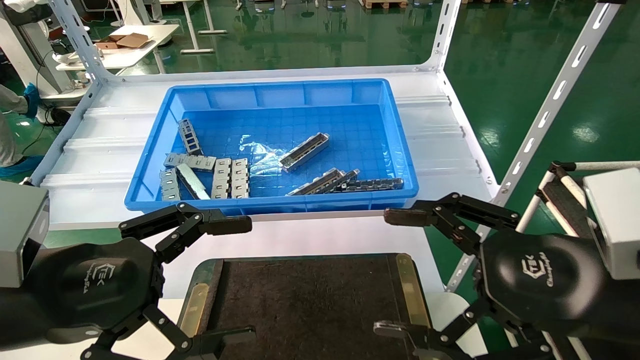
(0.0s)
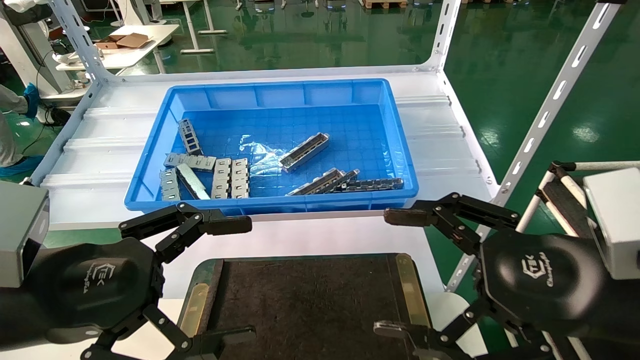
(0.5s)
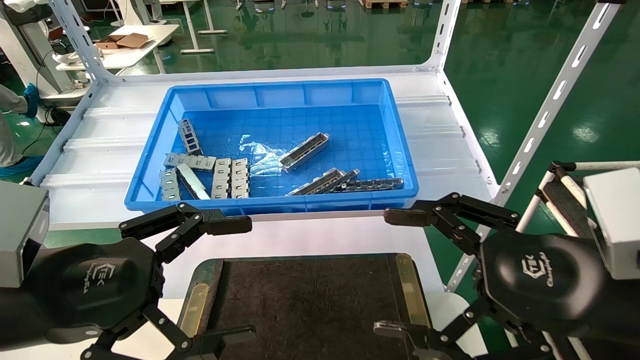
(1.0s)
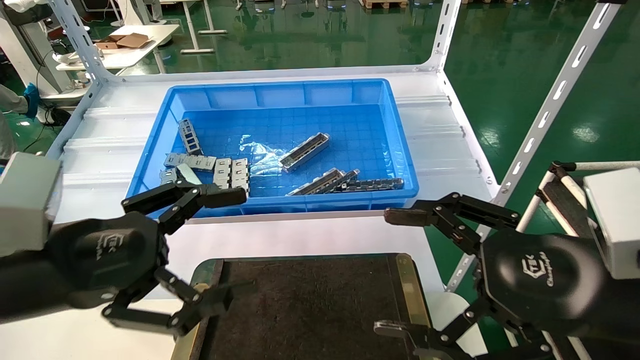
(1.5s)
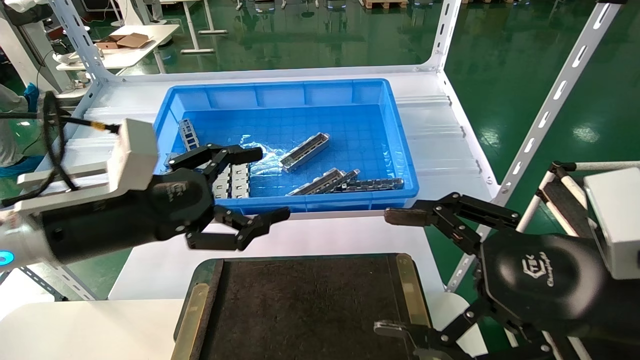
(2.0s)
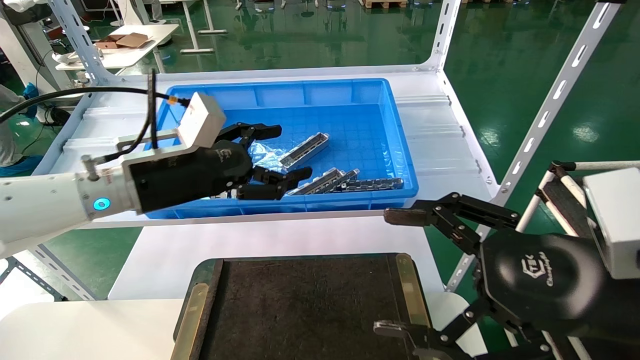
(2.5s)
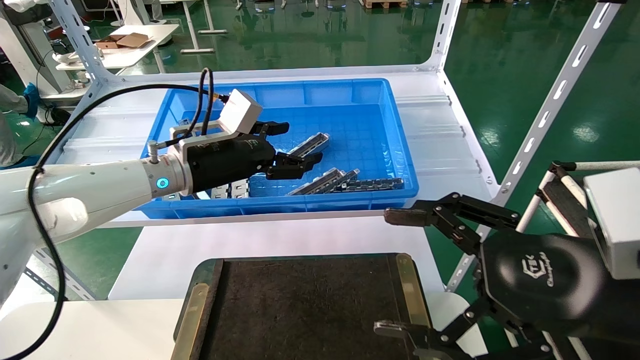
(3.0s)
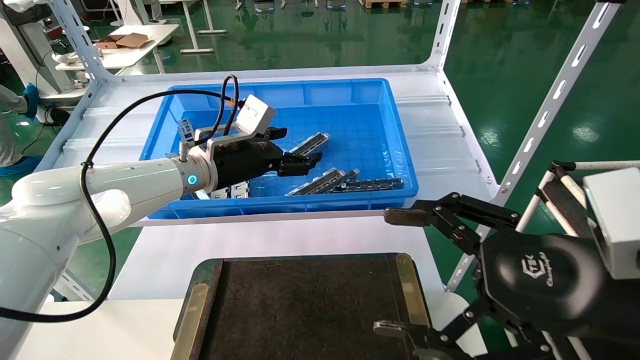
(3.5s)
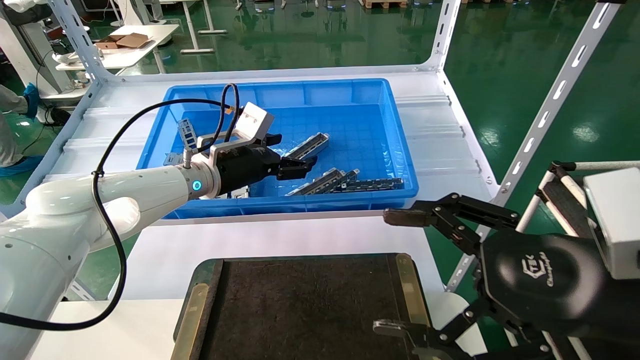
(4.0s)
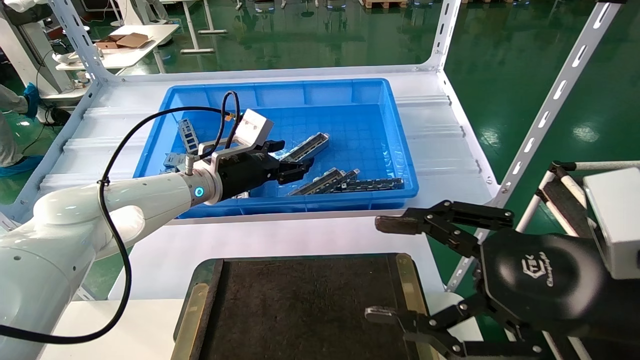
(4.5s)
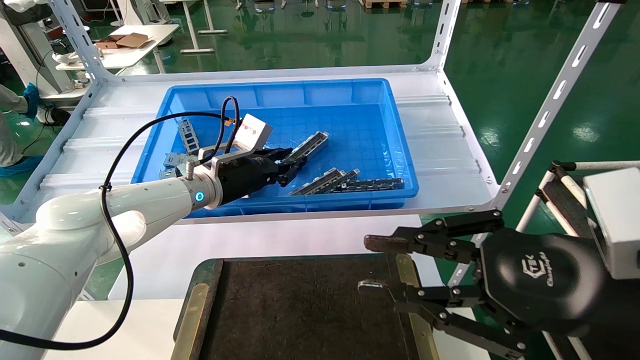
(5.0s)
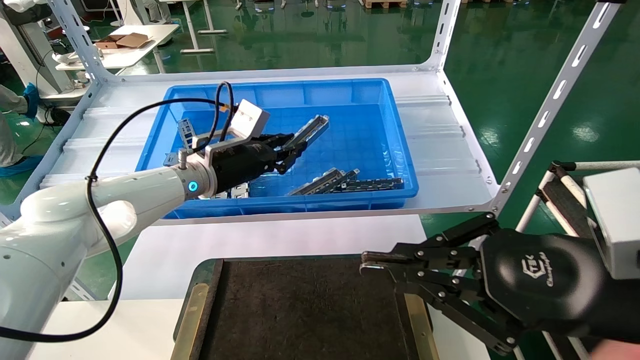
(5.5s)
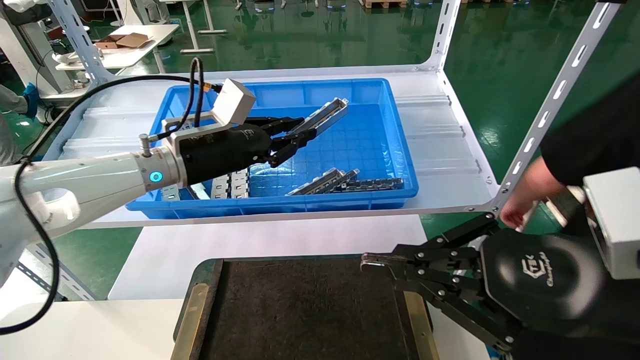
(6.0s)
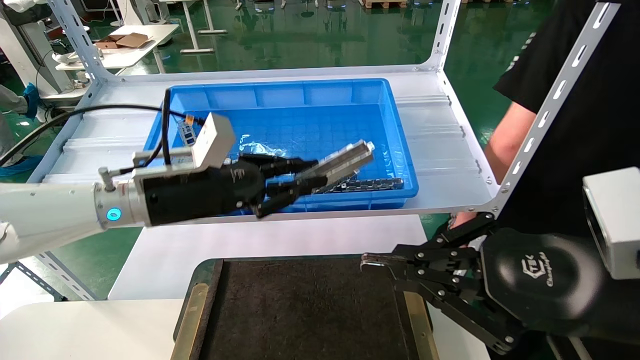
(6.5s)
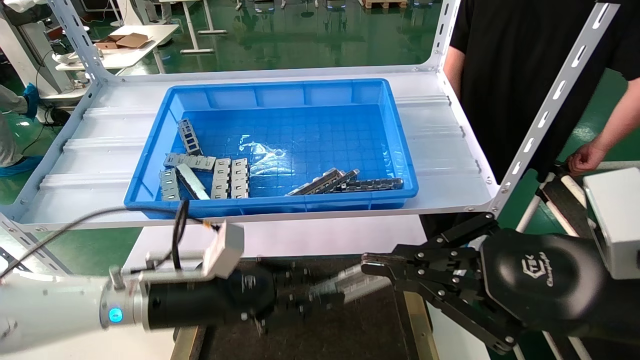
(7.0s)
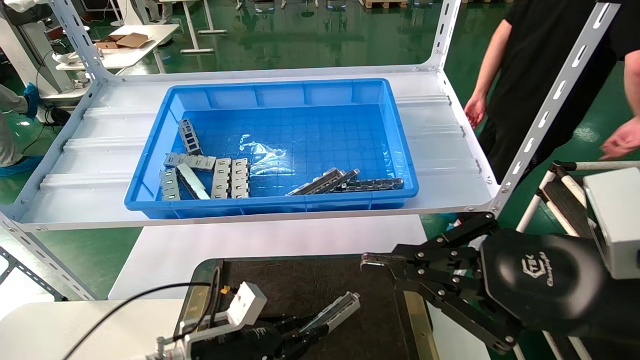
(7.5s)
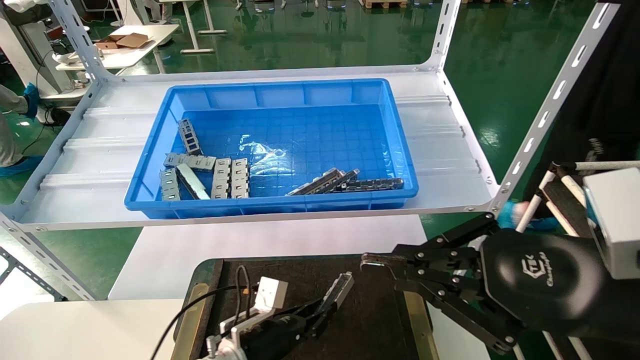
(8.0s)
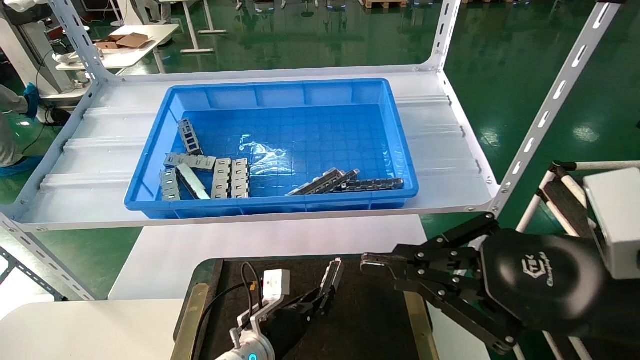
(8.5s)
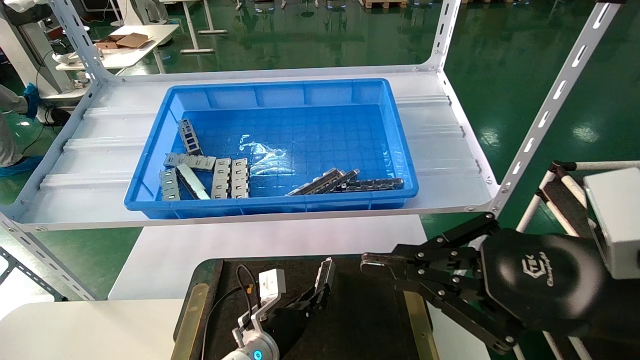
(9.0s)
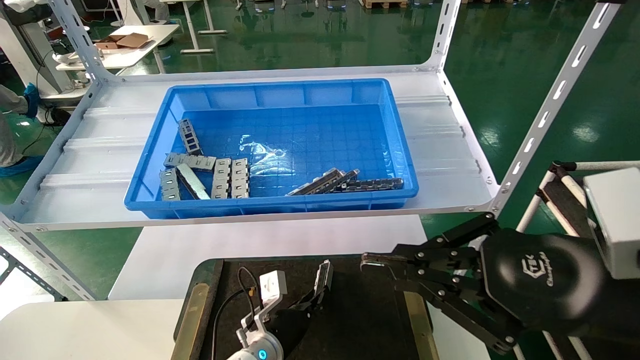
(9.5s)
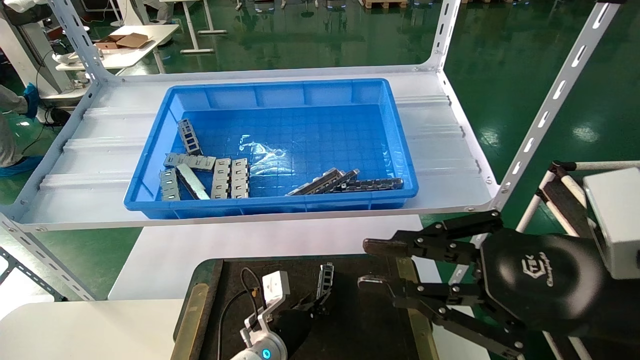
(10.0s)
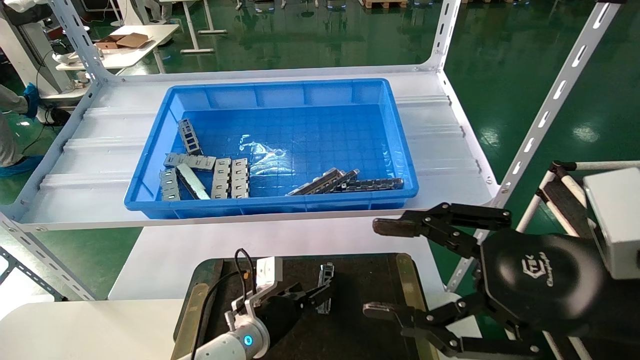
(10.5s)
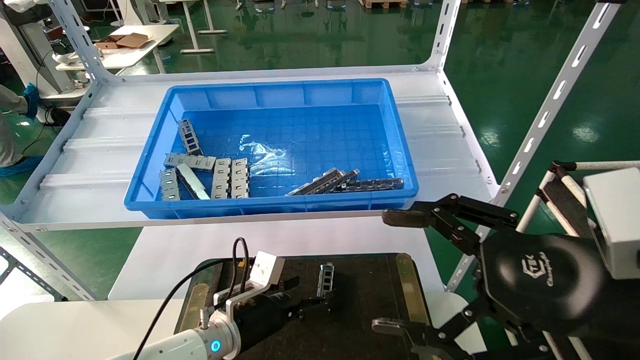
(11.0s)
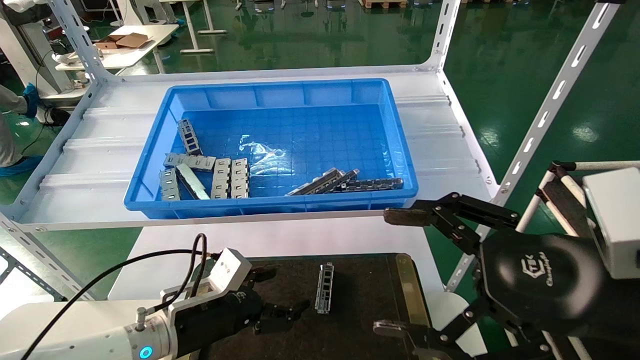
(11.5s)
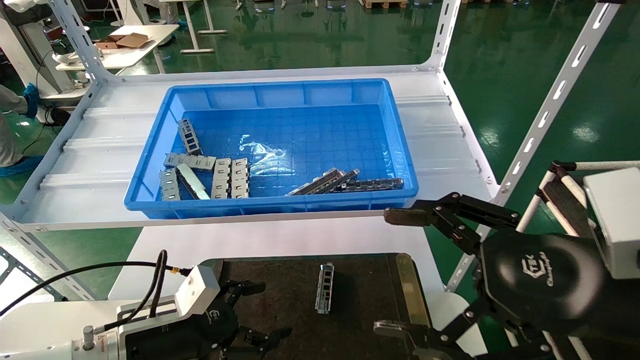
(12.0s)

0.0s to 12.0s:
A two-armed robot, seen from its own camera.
Task of the whole recording: Grasp the part with one hand and place it on the black container.
Step, 2.0s to 5.5s: Pick up the front USB bracket from the feeding area.
Step, 6.0s to 9.5s: Place the front USB bracket into the box.
0.0s to 2.0s: The left gripper heads forward, covering approximately 10 cm.
2.0s to 4.0s: The left gripper goes roughly 20 cm forward.
4.0s to 6.0s: The left gripper changes place by roughly 5 cm, and closes up. Meanwhile the right gripper closes up.
6.0s to 8.0s: The left gripper is displaced downward by about 30 cm.
8.0s to 10.0s: The left gripper shifts by approximately 5 cm.
10.0s to 12.0s: The left gripper shifts some 20 cm to the left, upward and backward, and opens. The right gripper opens its fingers.

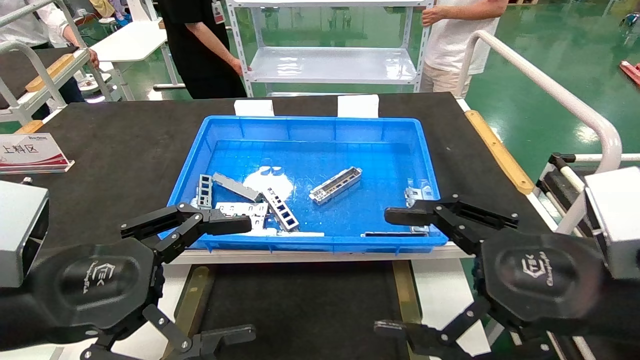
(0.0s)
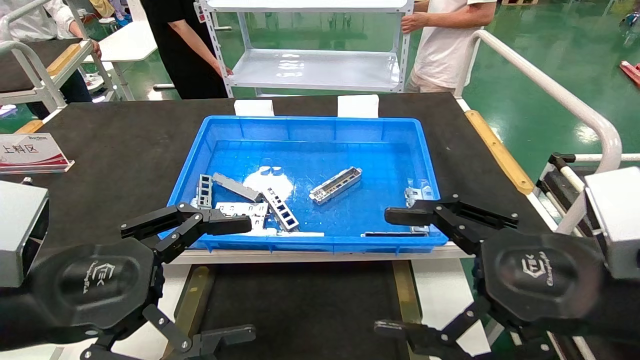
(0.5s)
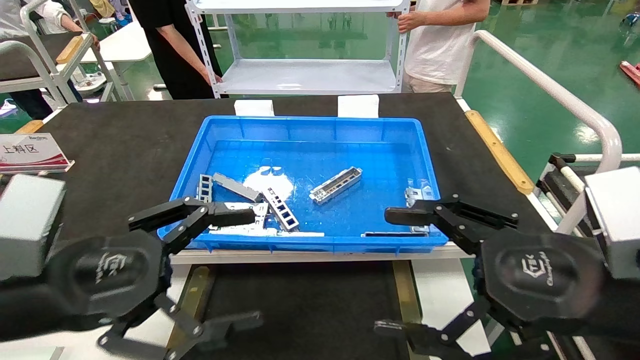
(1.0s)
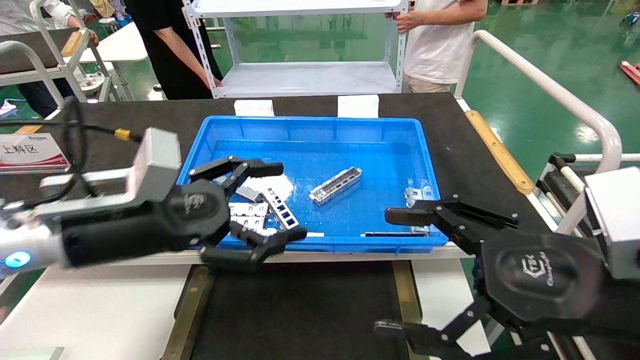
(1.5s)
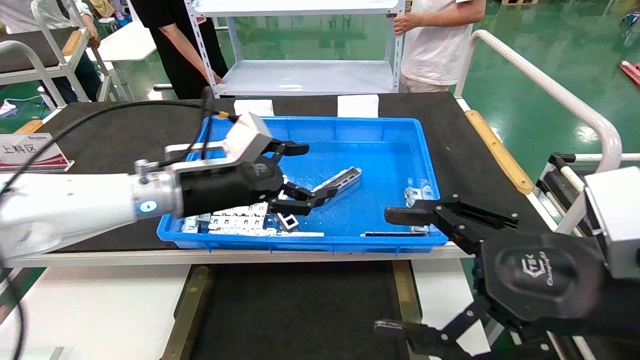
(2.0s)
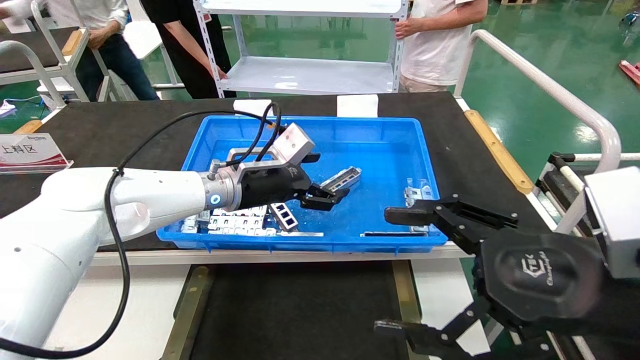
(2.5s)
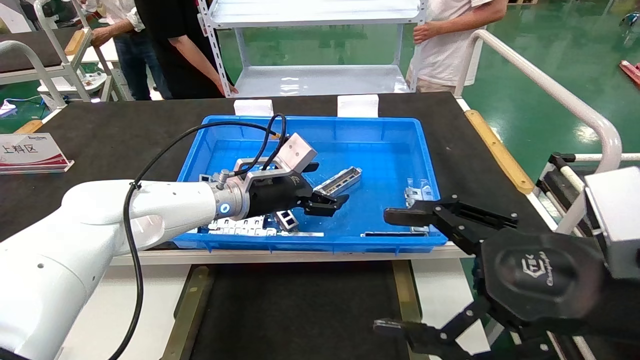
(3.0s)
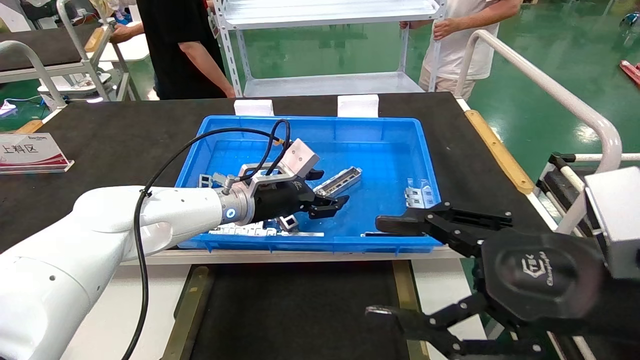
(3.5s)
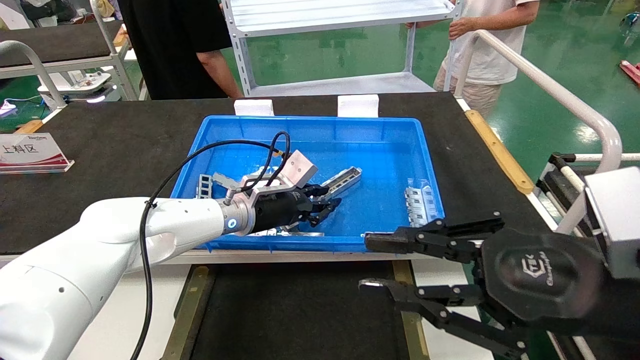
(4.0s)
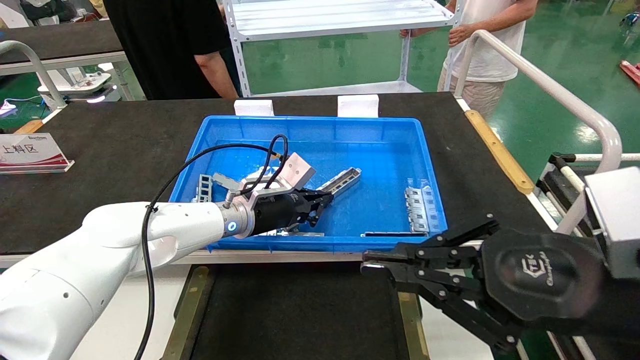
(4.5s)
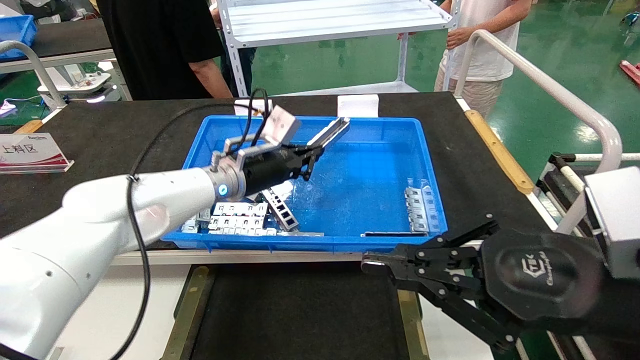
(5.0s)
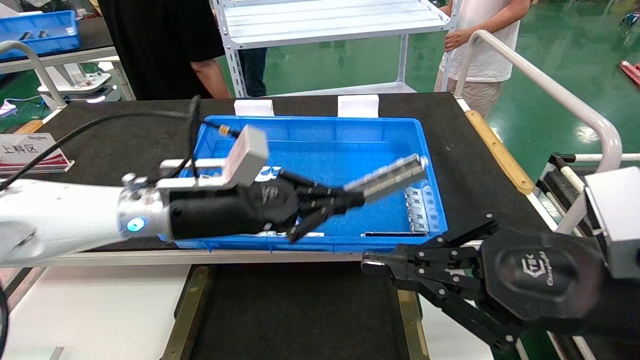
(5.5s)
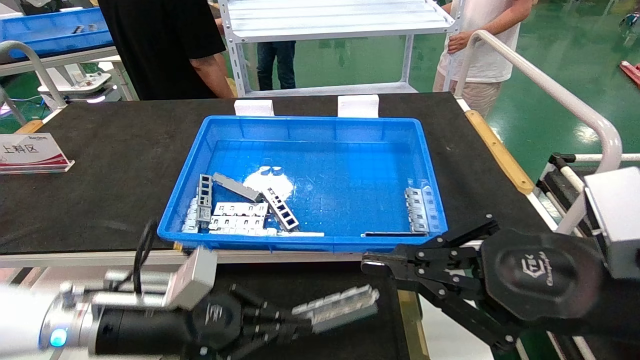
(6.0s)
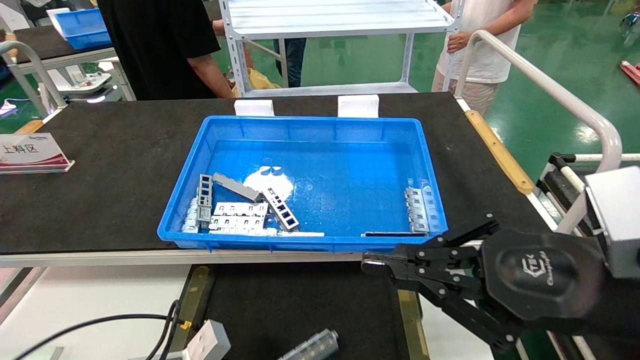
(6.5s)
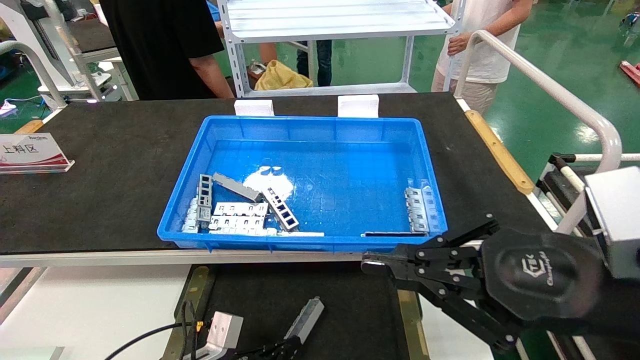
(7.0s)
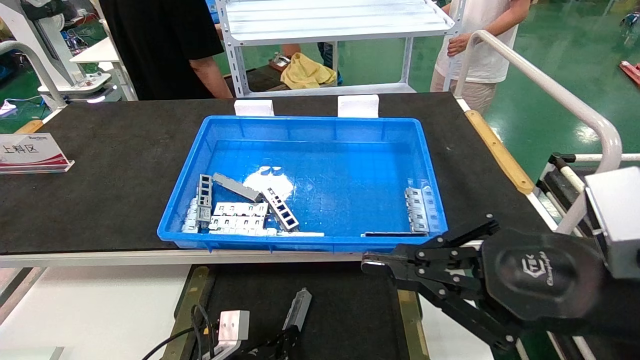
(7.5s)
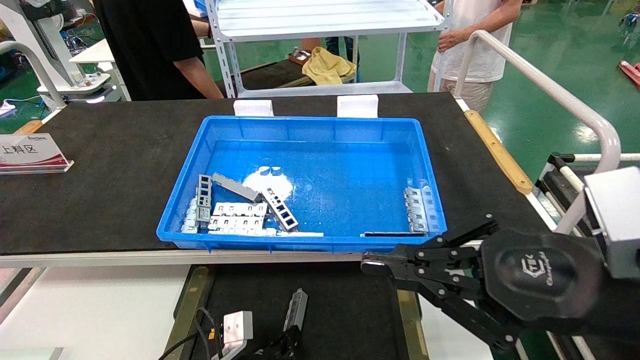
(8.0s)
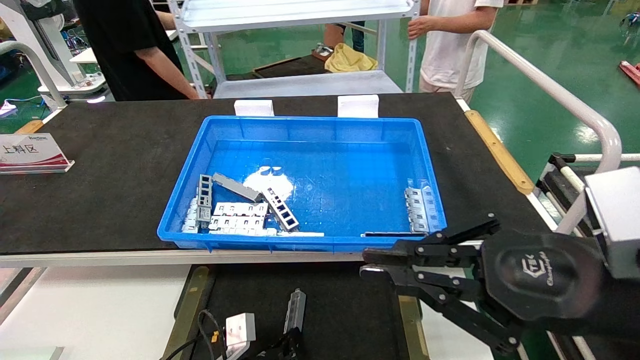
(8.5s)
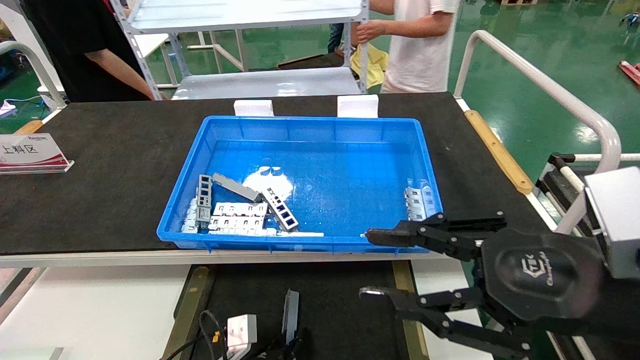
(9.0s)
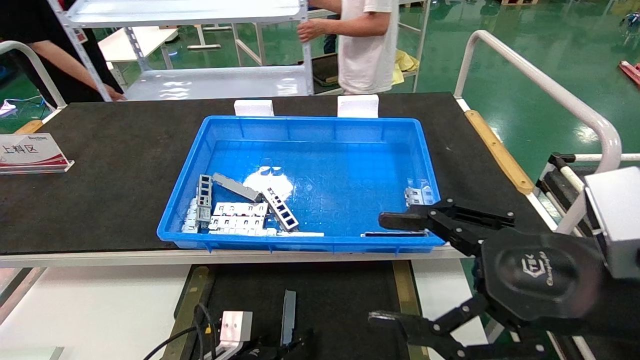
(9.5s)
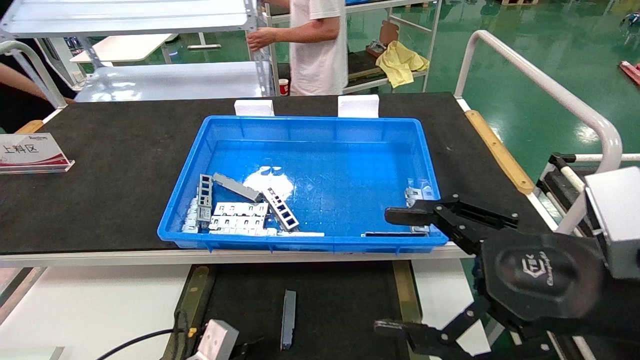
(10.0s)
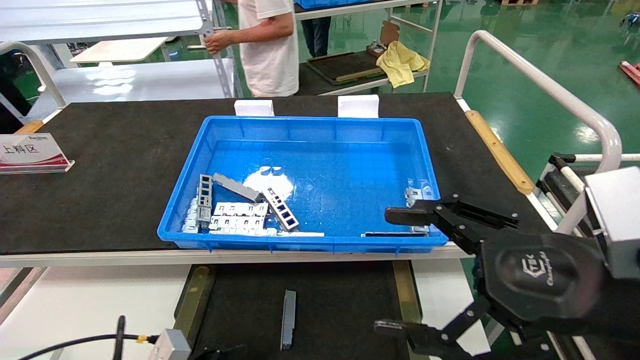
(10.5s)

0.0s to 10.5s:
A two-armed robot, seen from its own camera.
Task of the whole recording: Grasp the part with one hand and place it on the black container.
Step, 1.5s to 4.5s: Pick up the front USB bracket from the feeding area.
Step, 5.0s to 9.0s: Place the front USB bracket into the box.
0.0s to 2.0s: The left gripper shifts about 25 cm forward and to the right.
2.0s to 4.0s: The left gripper moves forward, downward and to the right, roughly 10 cm, and closes up. The right gripper closes its fingers.
4.0s to 6.5s: The left gripper shifts approximately 30 cm backward, downward and to the left, and closes up. Meanwhile the right gripper closes its fingers.
6.5s to 8.5s: The left gripper moves downward and to the right, some 15 cm.
8.5s to 10.5s: The left gripper moves to the left, backward and upward, approximately 15 cm, and opens; the right gripper opens.
